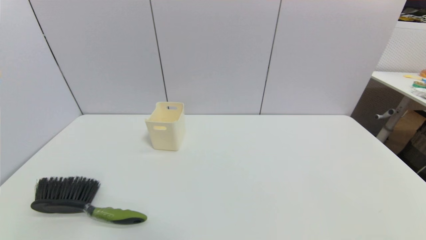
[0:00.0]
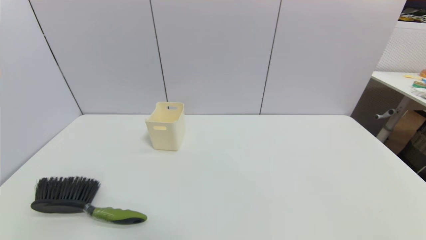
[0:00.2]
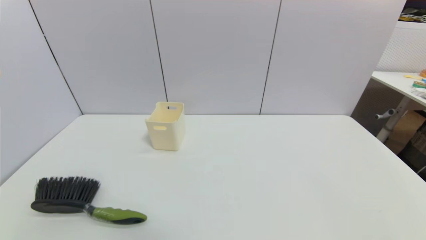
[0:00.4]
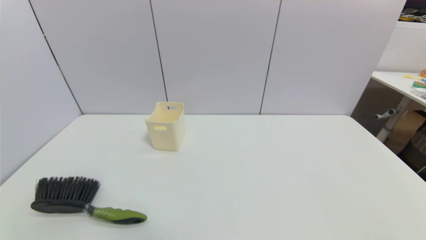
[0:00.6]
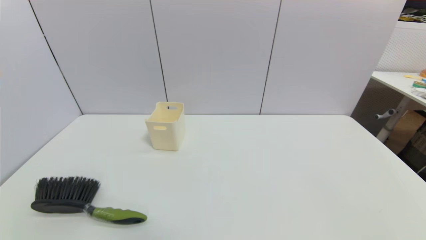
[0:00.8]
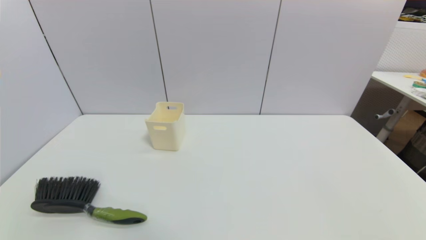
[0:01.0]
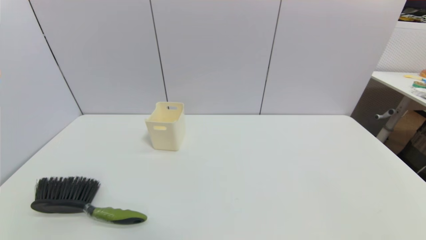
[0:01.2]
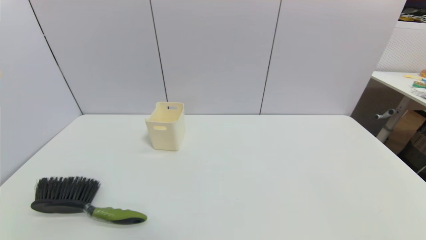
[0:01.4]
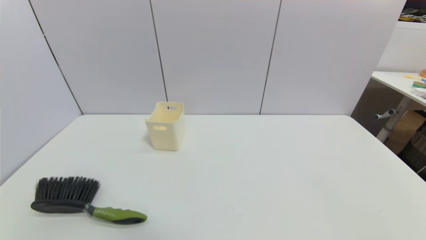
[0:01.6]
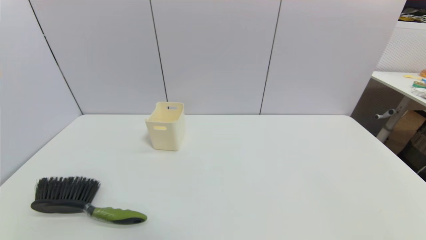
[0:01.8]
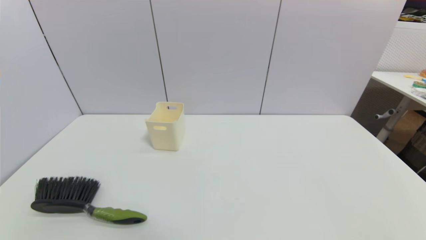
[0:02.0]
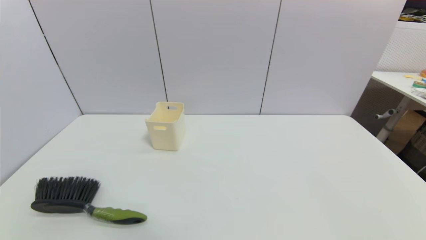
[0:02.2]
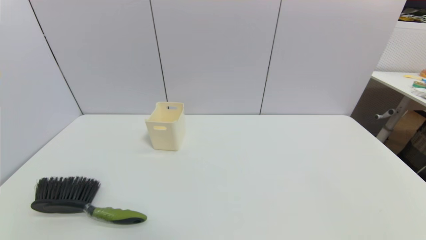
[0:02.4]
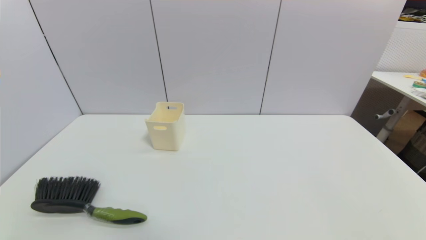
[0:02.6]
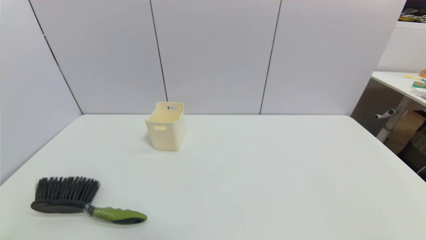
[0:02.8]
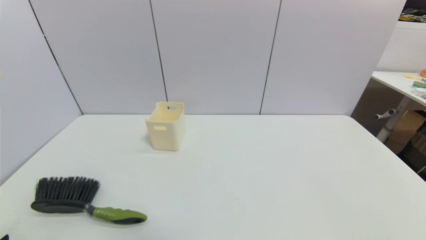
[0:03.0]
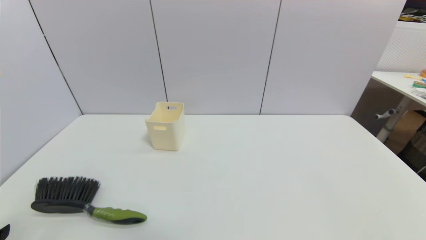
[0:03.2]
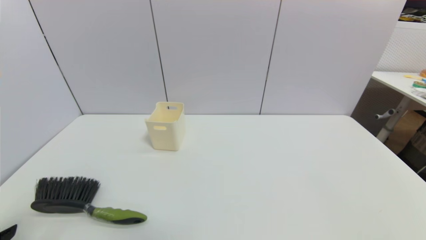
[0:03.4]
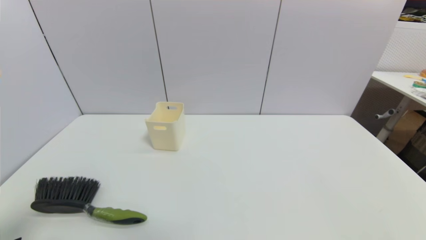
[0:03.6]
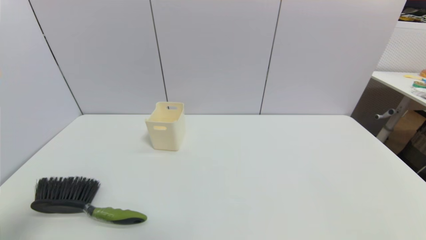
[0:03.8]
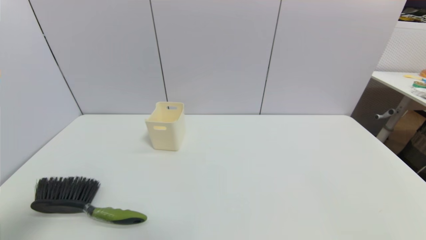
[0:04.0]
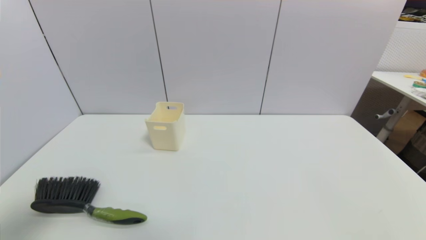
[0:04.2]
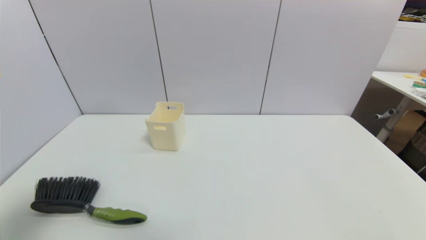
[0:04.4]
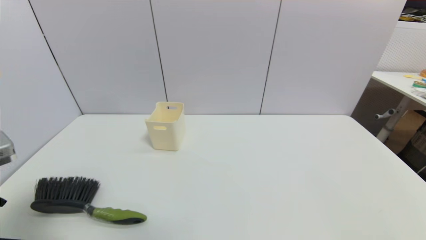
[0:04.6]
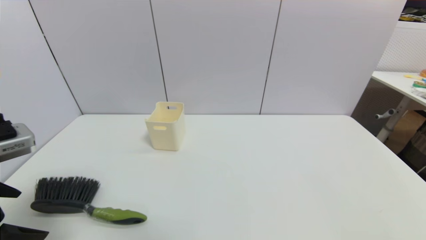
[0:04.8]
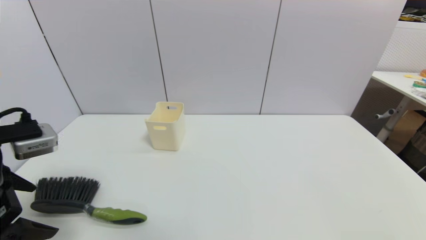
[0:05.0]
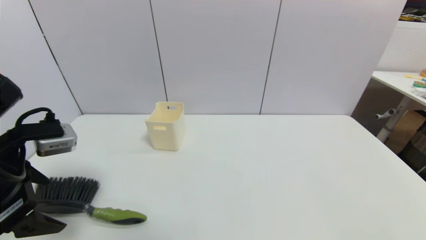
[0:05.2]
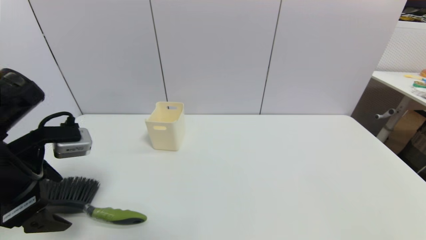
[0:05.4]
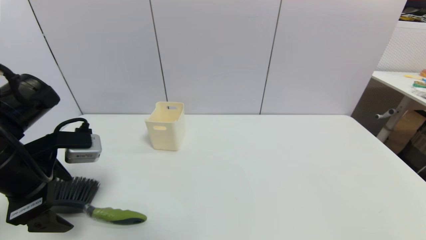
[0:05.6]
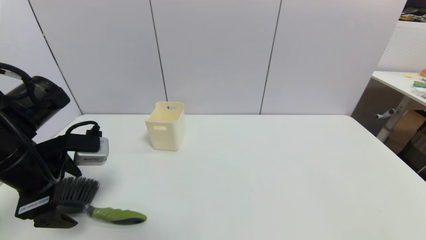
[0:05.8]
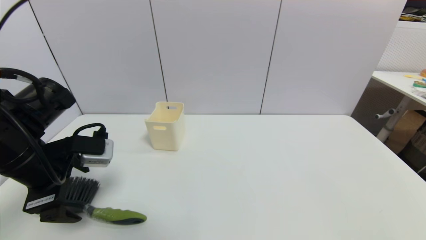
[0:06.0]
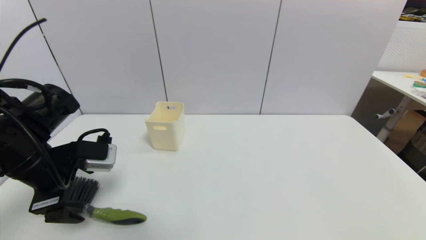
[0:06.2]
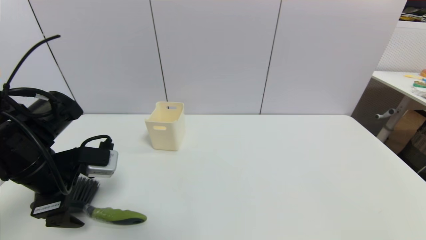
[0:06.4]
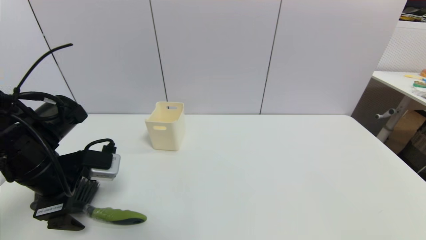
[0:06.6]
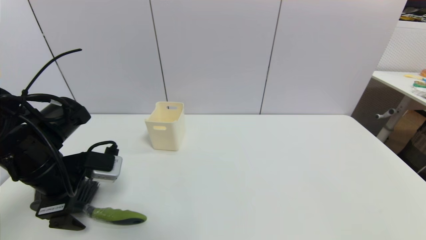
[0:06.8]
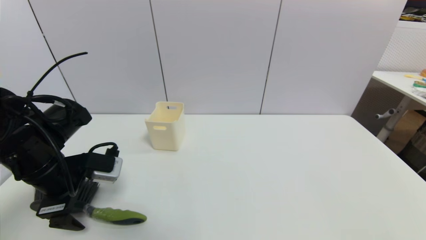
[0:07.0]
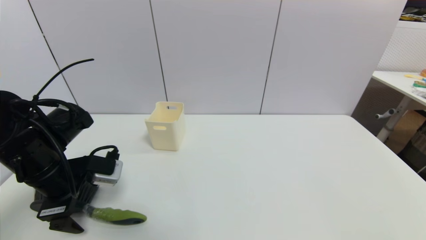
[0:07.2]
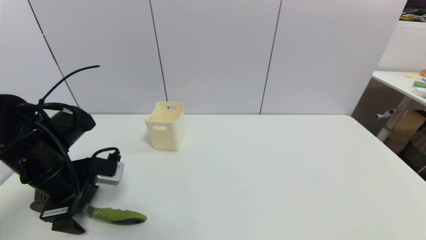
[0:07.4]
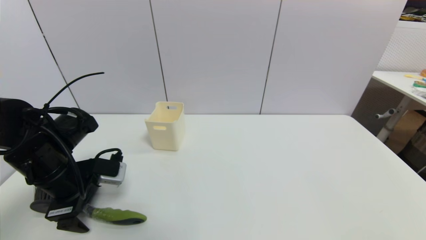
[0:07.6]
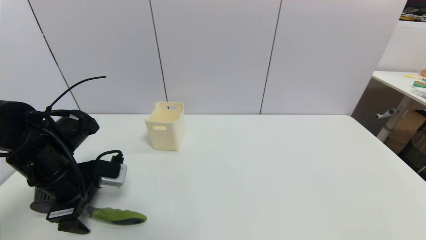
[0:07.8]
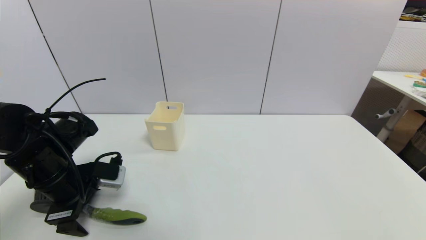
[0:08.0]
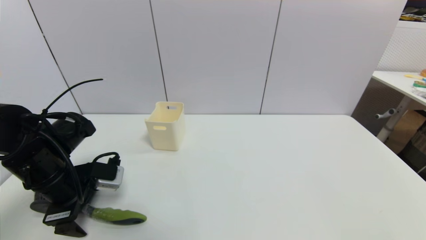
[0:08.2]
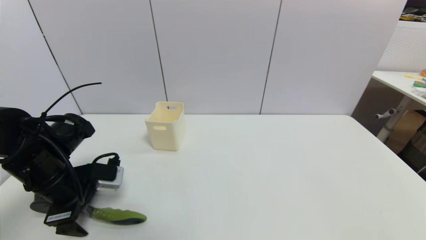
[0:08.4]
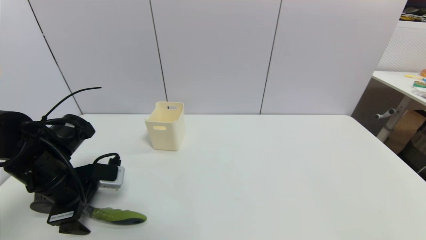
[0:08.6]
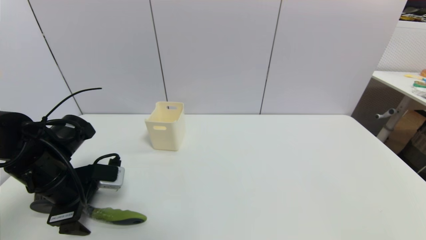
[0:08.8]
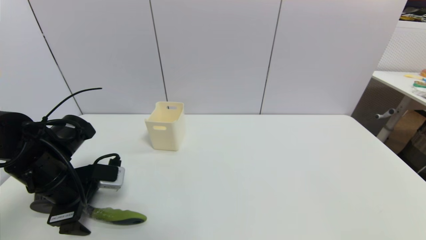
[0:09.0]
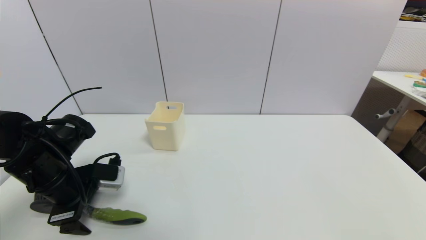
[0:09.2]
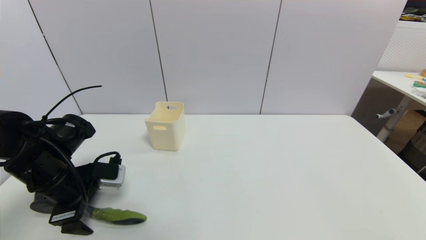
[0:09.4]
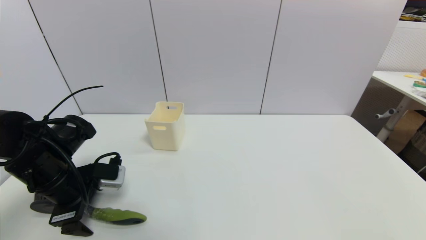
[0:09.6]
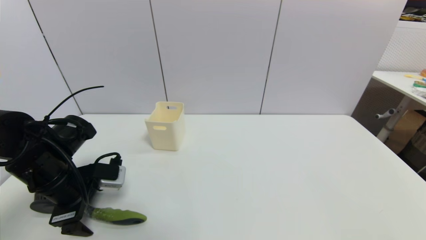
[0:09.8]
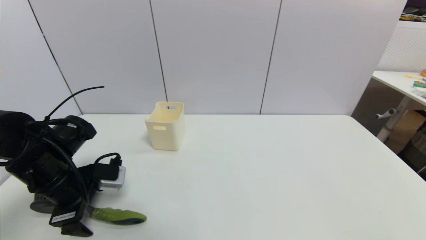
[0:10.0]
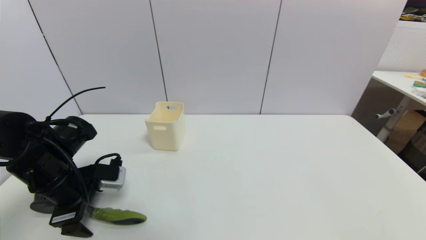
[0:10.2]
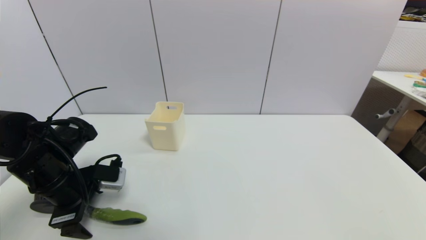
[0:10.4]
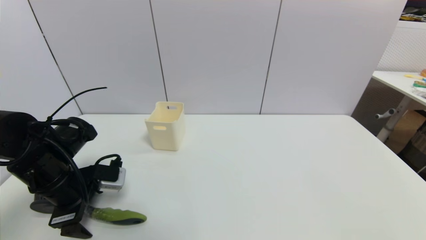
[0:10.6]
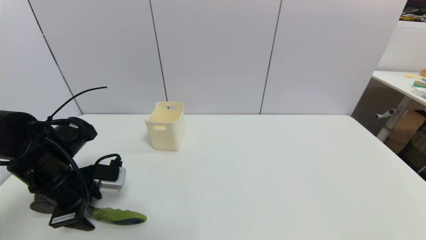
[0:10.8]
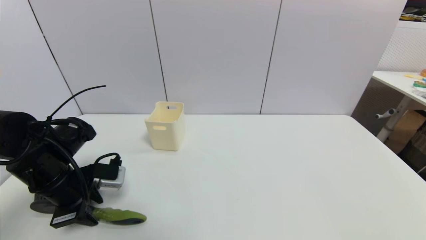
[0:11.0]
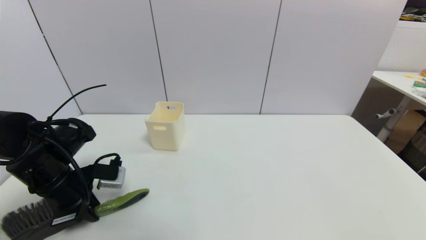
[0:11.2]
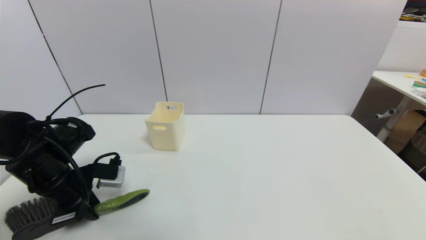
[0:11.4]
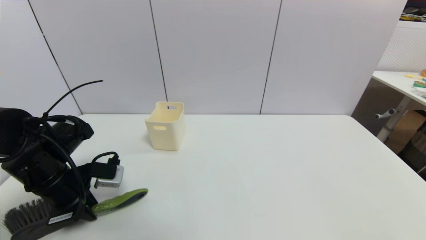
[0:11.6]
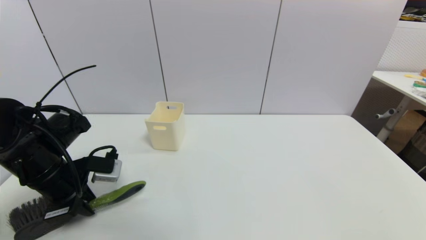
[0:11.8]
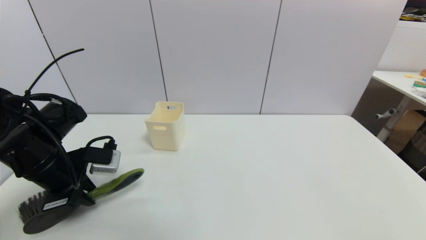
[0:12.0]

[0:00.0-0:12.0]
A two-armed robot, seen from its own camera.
Task of the whole recording: put the brush in the designated position.
0:00.0 to 0:01.6: Neither gripper changes place.
0:03.0 to 0:04.4: The left gripper moves forward and upward, approximately 10 cm.
0:04.4 to 0:06.0: The left gripper travels forward by some 15 cm.
0:06.0 to 0:07.6: The left gripper shifts approximately 5 cm downward.
0:07.6 to 0:09.0: There are only small adjustments of the grippers.
0:09.0 to 0:10.4: Both grippers stay about where they are.
0:10.4 to 0:12.0: The left gripper closes up.

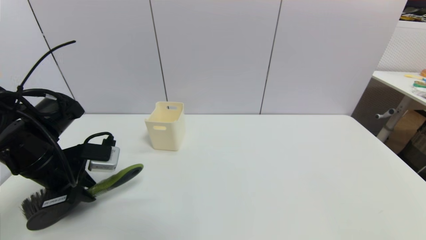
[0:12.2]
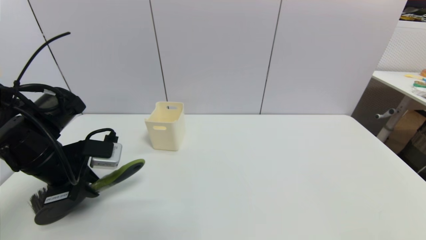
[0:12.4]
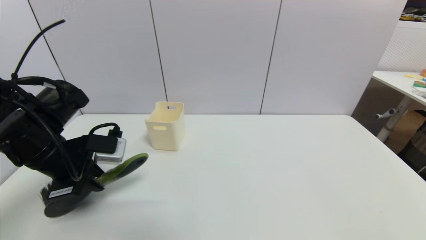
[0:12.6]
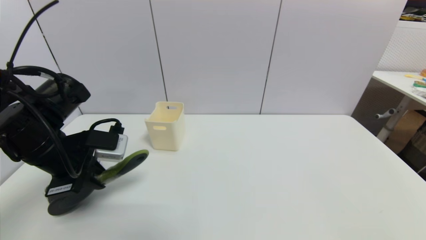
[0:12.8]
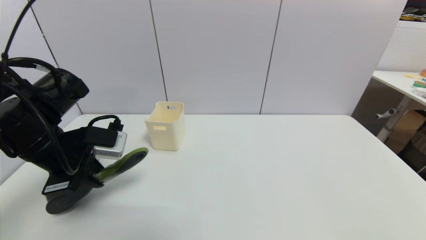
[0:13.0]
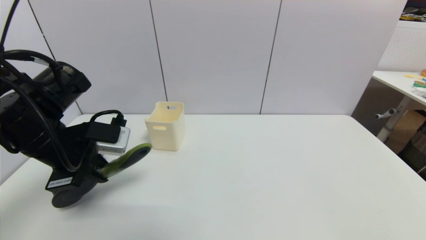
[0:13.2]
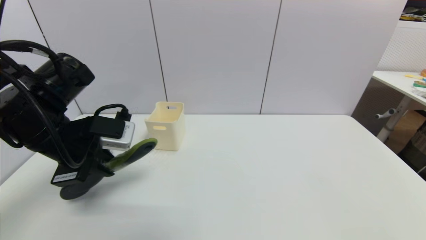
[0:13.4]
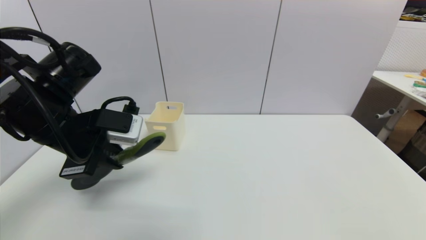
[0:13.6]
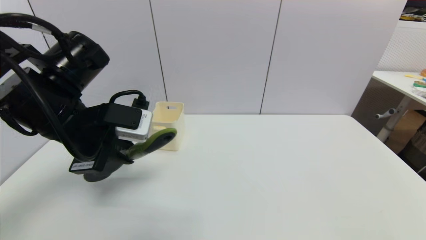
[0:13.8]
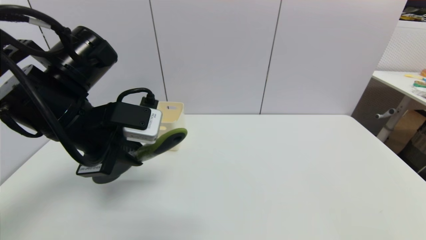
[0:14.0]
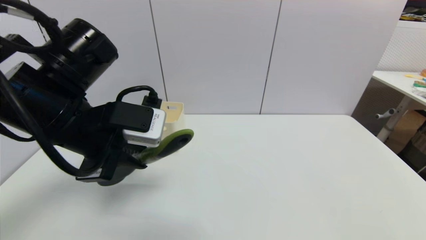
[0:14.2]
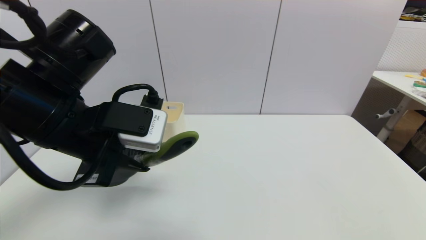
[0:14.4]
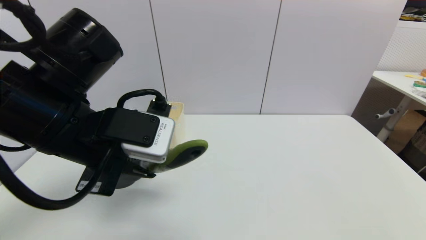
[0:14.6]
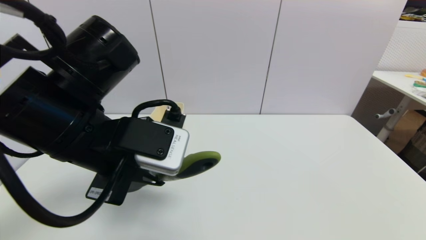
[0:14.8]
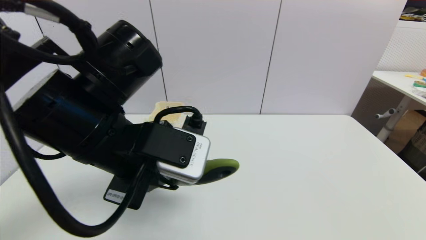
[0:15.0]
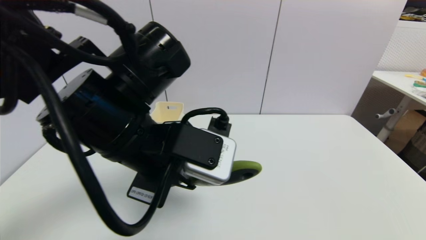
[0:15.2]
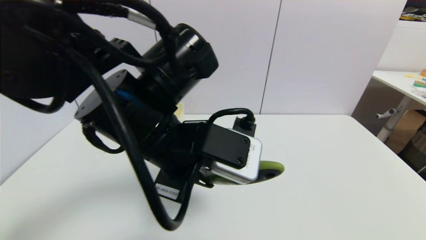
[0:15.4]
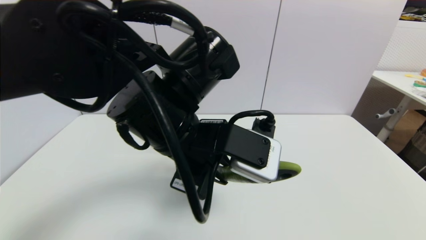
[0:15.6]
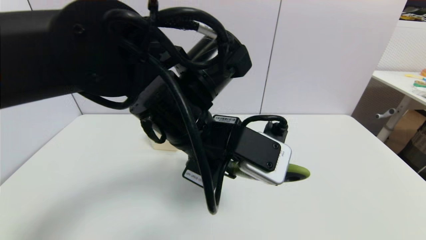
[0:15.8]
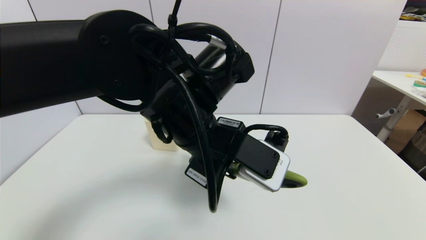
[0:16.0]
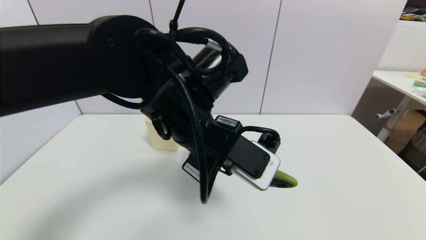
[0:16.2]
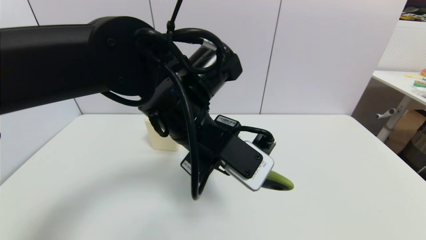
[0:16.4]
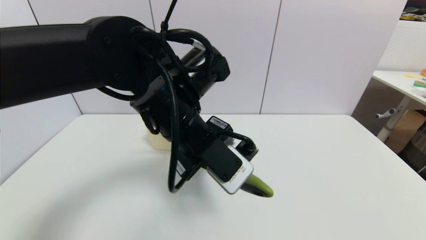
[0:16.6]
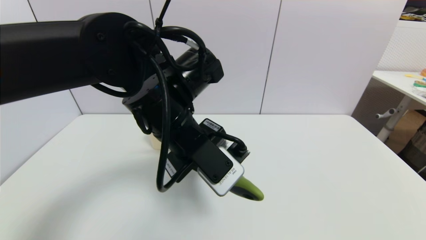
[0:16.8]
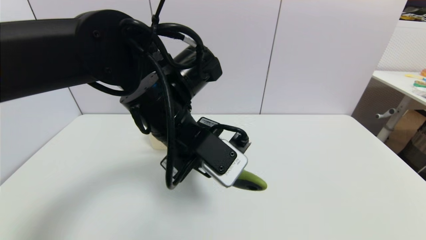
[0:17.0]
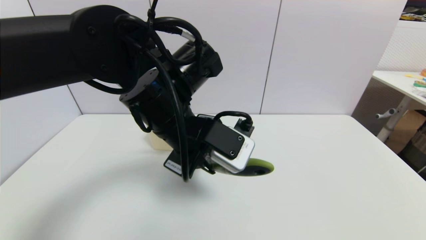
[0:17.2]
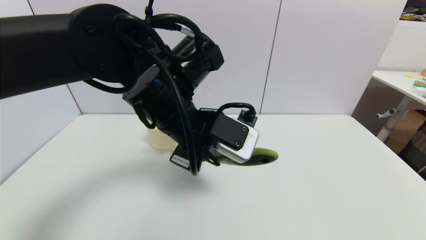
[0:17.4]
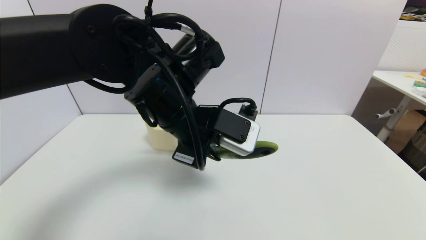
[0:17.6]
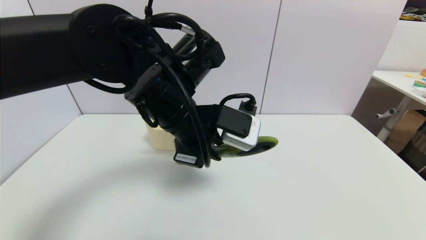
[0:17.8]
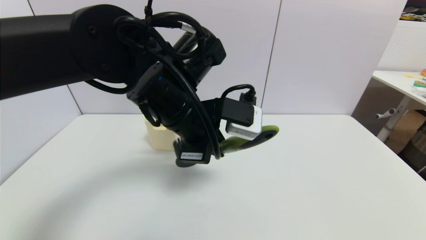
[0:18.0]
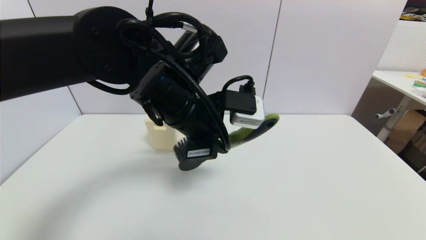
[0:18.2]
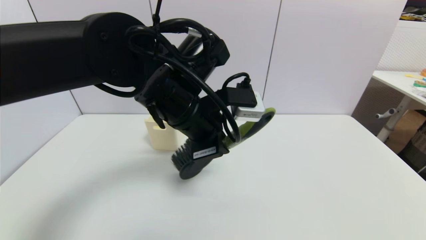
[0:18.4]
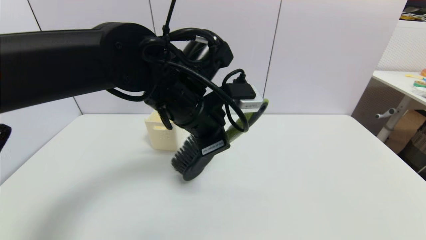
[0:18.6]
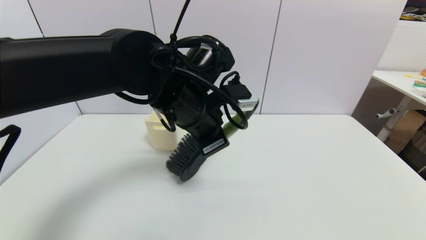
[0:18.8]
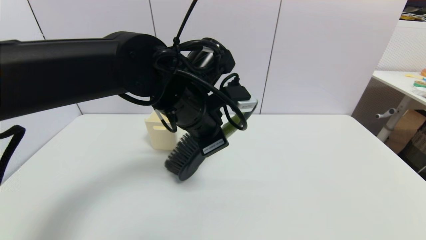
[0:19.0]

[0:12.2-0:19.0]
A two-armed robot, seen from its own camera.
Task of the whole recording: put the brush in the designated position.
0:12.2 to 0:13.6: The left gripper is displaced upward and to the right by some 10 cm.
0:13.6 to 0:15.0: The left gripper travels to the right by approximately 10 cm.
0:15.0 to 0:16.2: The left gripper heads to the right, covering some 10 cm.
0:16.2 to 0:17.6: There are only small adjustments of the grippers.
